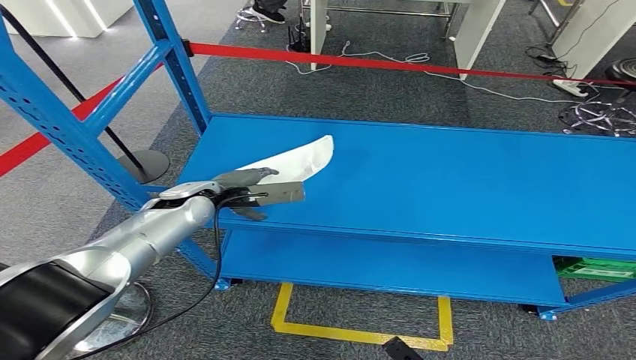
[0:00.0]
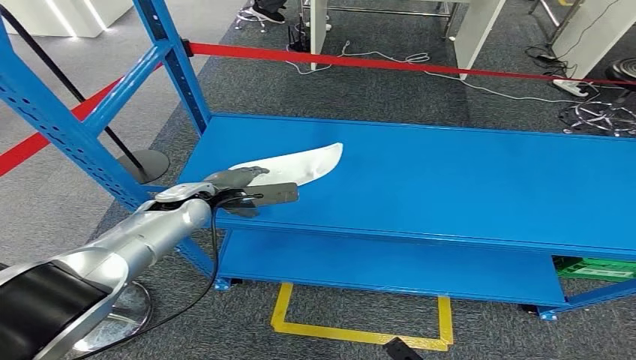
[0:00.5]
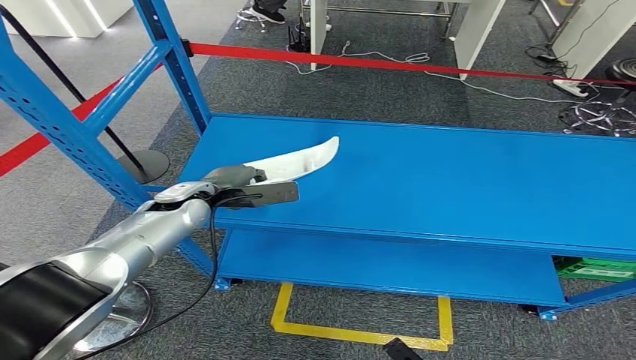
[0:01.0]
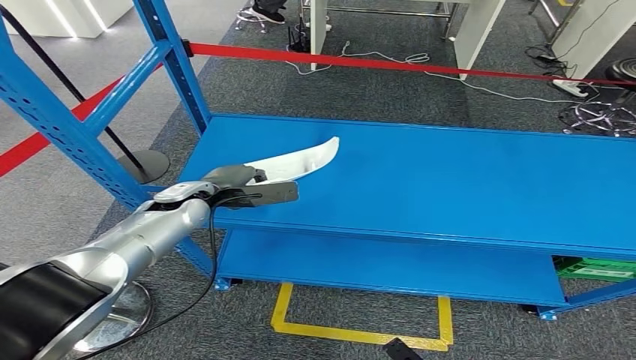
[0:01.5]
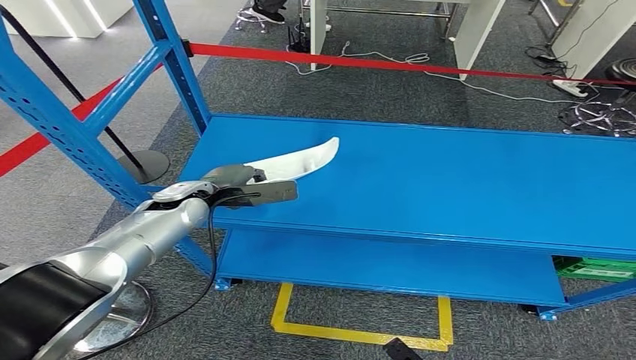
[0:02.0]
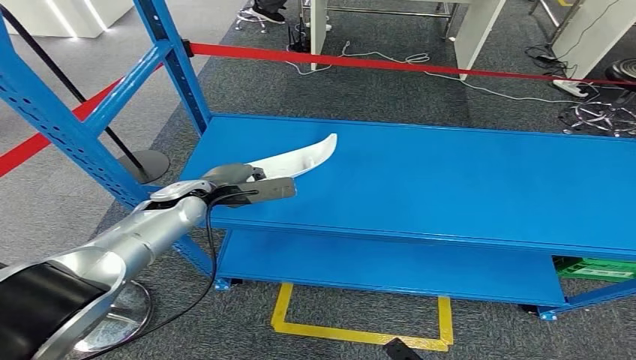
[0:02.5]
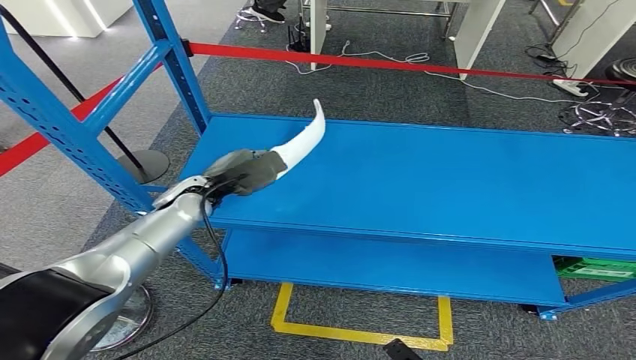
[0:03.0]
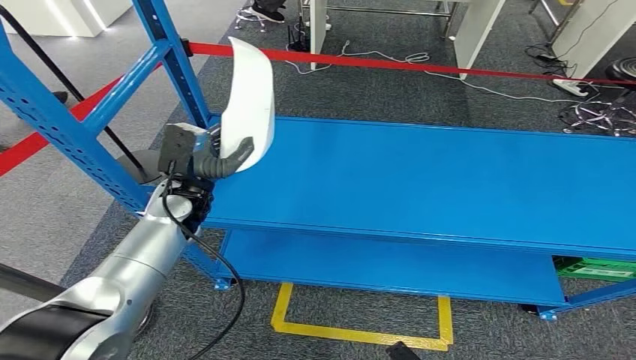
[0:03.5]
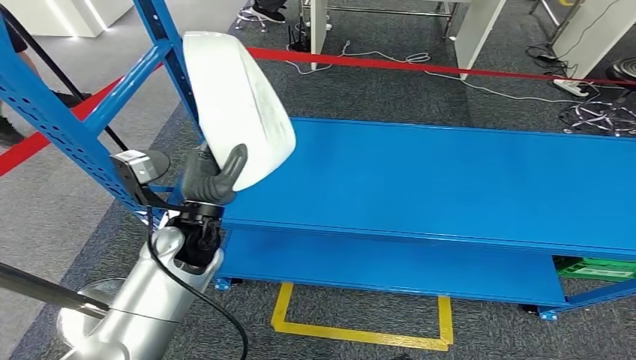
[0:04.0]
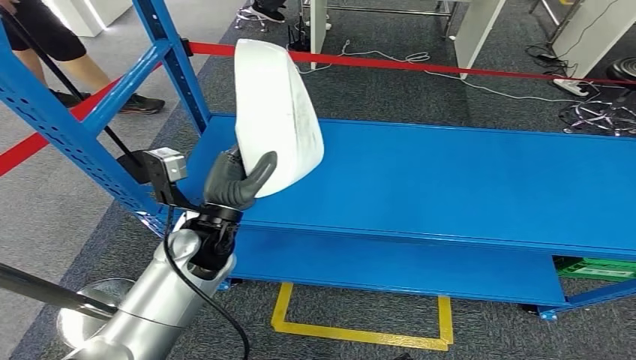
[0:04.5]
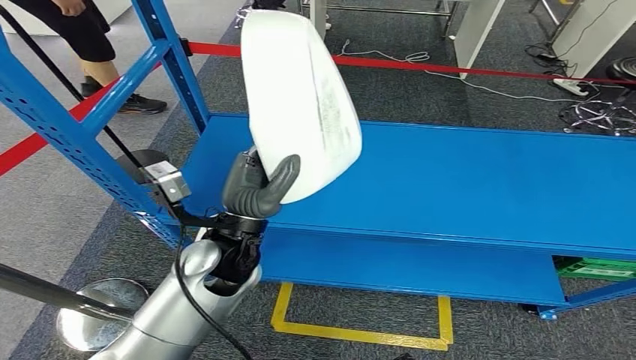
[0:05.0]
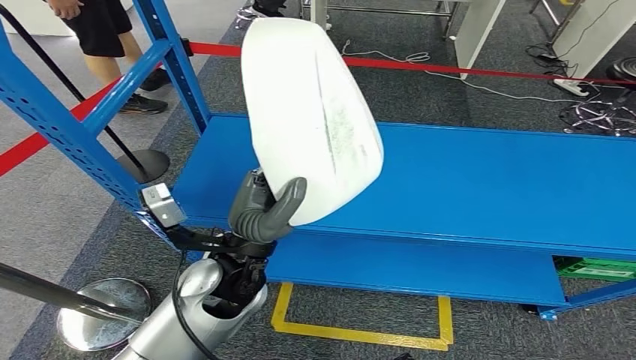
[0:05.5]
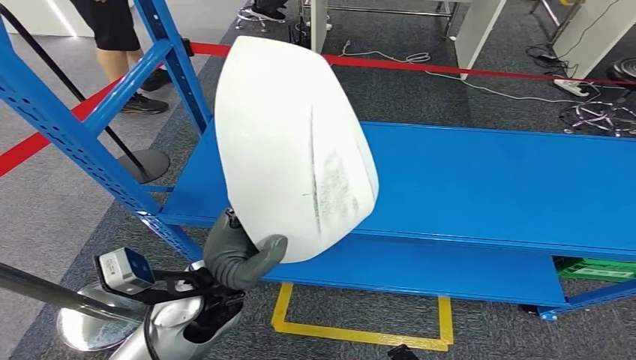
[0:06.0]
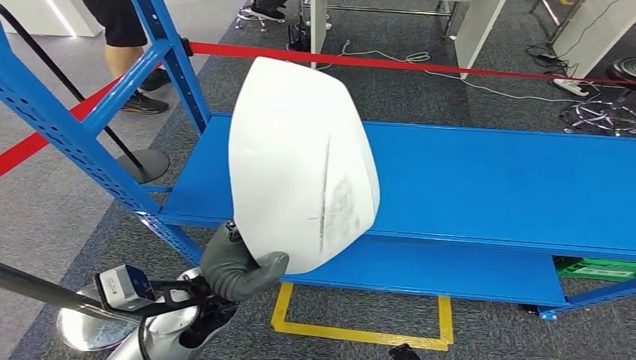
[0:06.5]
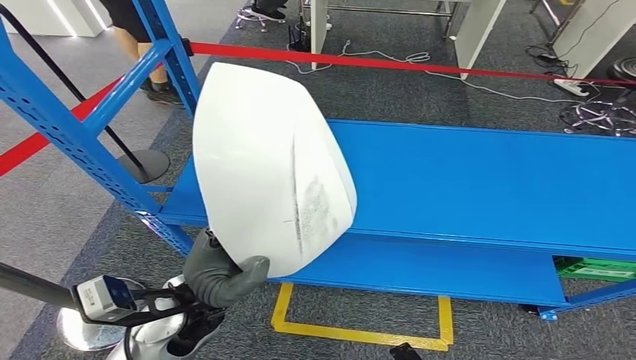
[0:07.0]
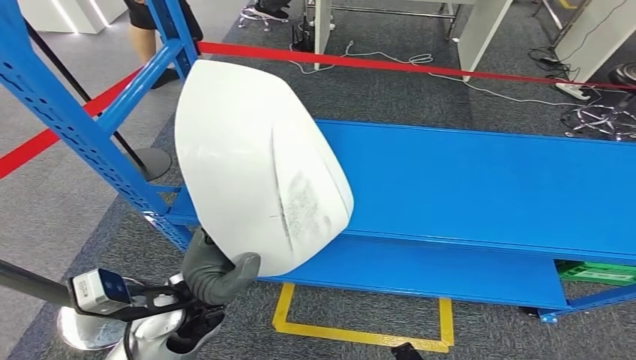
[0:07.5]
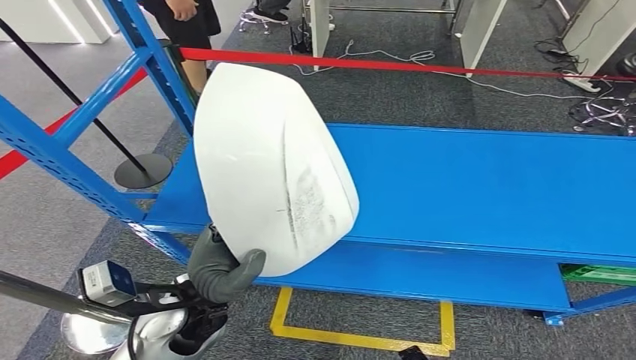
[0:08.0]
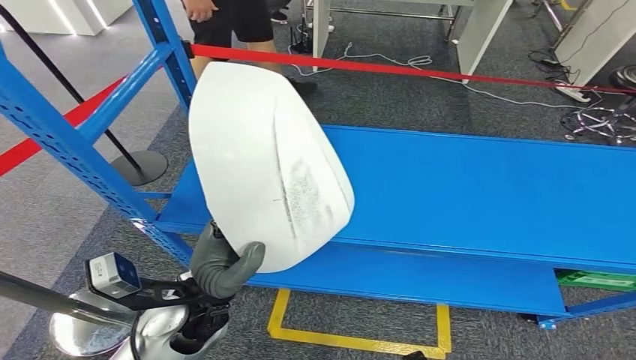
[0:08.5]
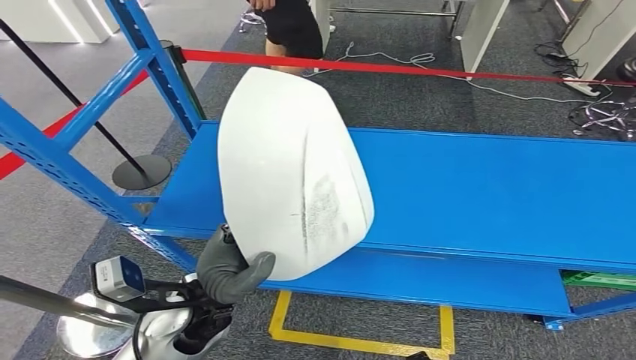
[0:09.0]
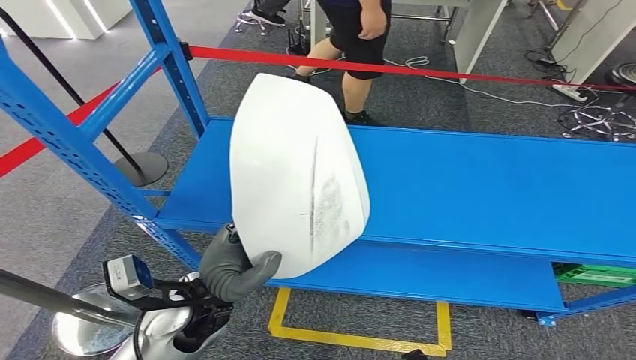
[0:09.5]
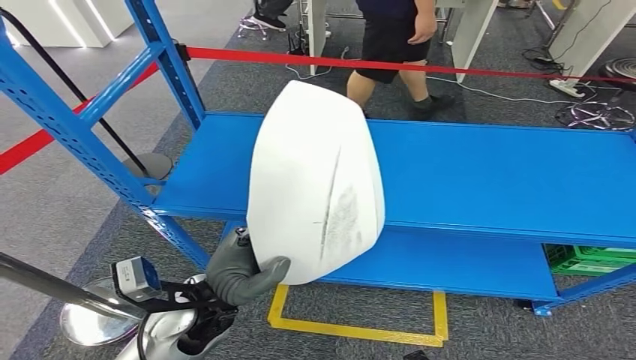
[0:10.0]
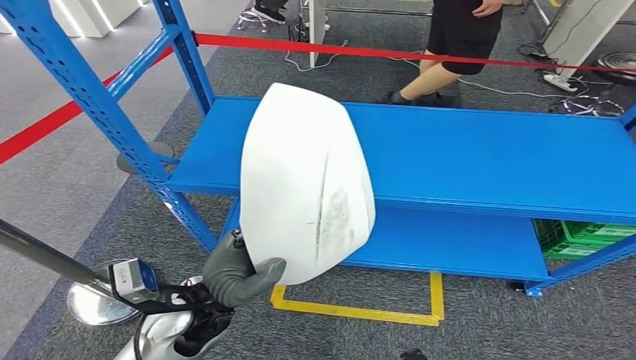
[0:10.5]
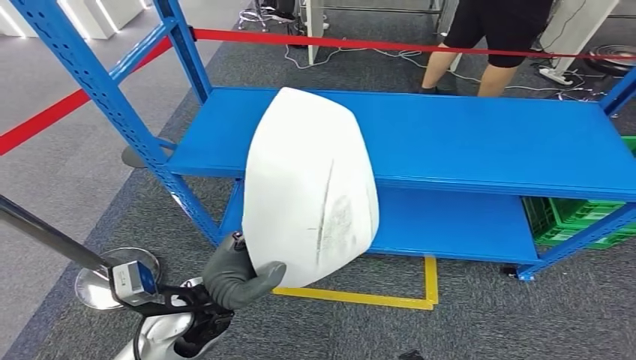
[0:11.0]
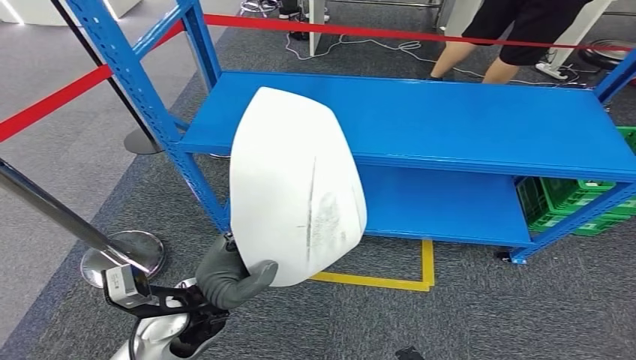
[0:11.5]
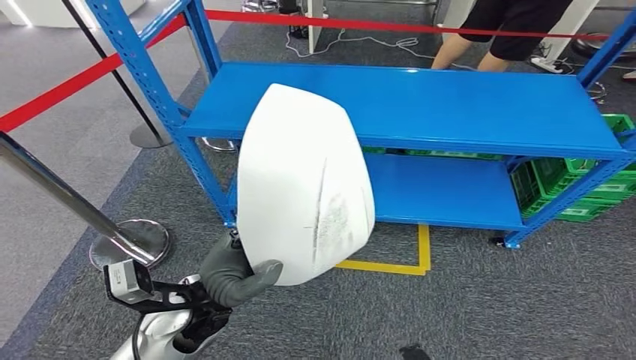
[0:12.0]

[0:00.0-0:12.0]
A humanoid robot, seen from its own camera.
Step, 0:00.0 to 0:03.0: Pick up the small component from the shelf.
0:00.0 to 0:02.0: The hands stay close to where they were, moving slightly.
0:02.0 to 0:04.0: The left hand heads backward, covering approximately 10 cm.

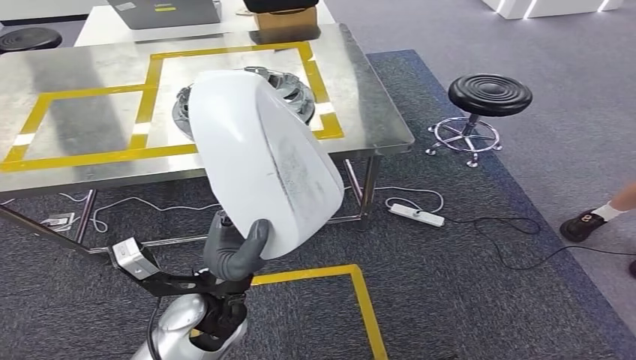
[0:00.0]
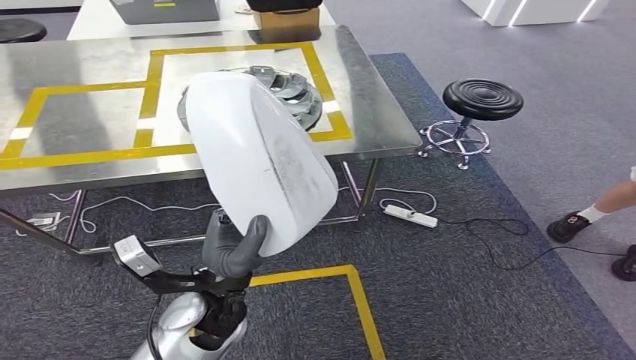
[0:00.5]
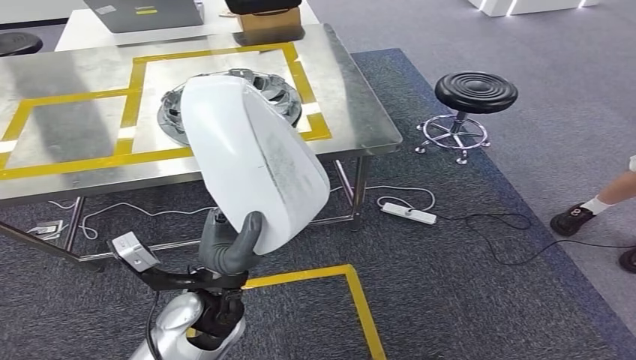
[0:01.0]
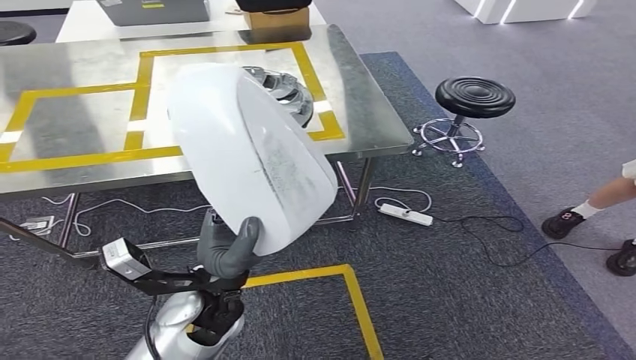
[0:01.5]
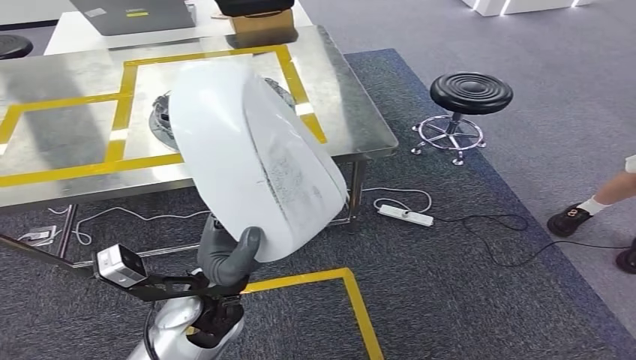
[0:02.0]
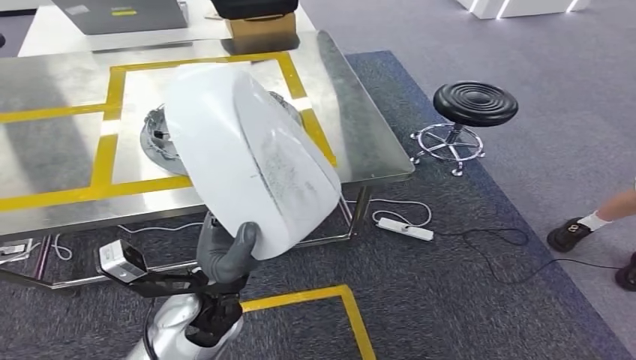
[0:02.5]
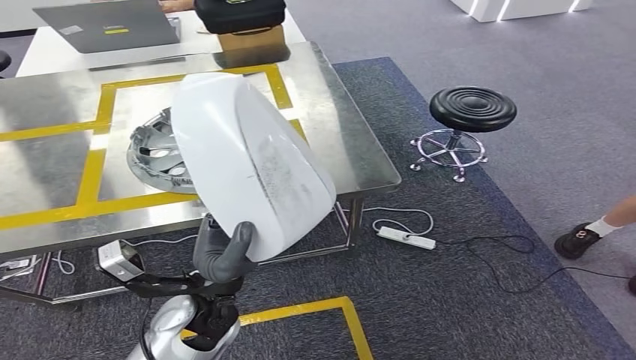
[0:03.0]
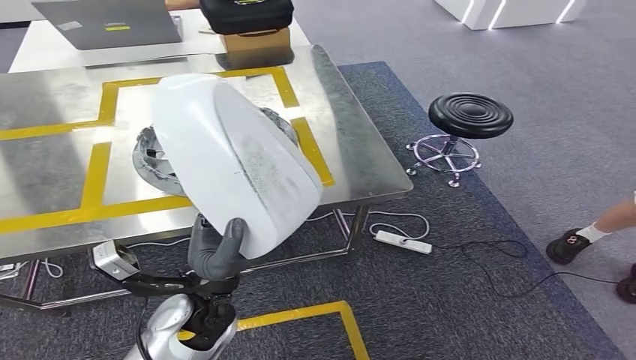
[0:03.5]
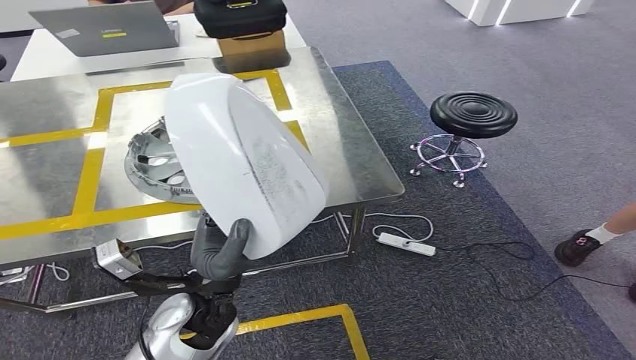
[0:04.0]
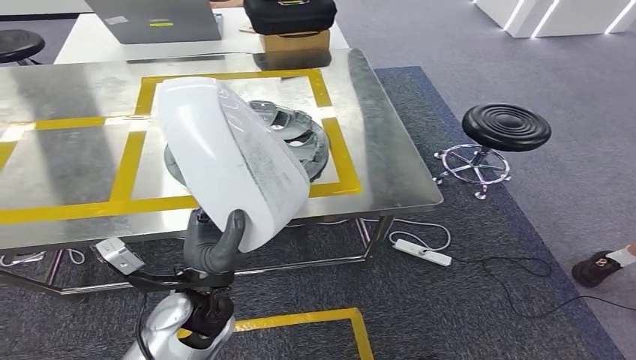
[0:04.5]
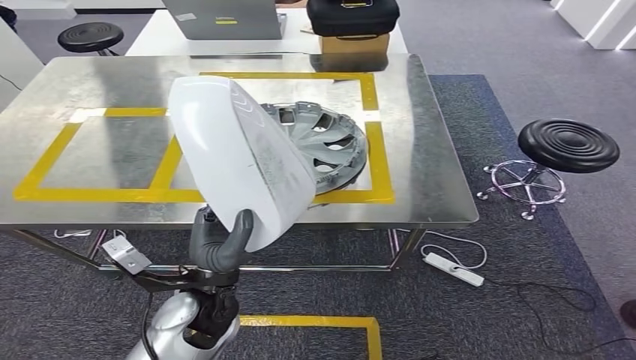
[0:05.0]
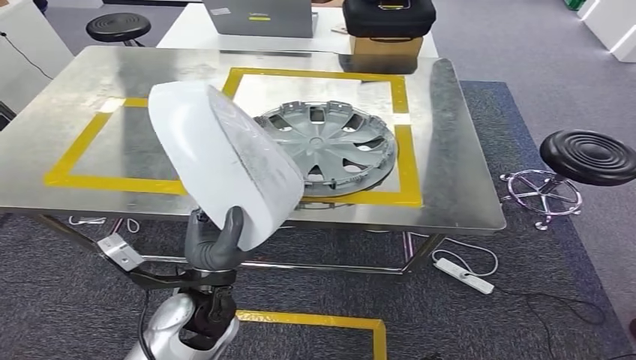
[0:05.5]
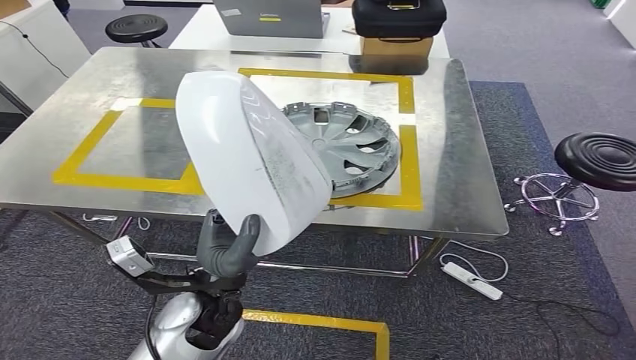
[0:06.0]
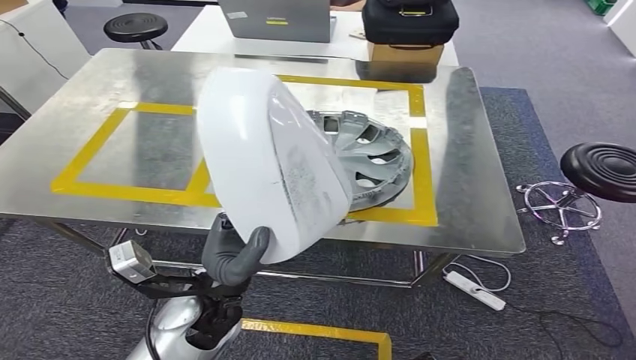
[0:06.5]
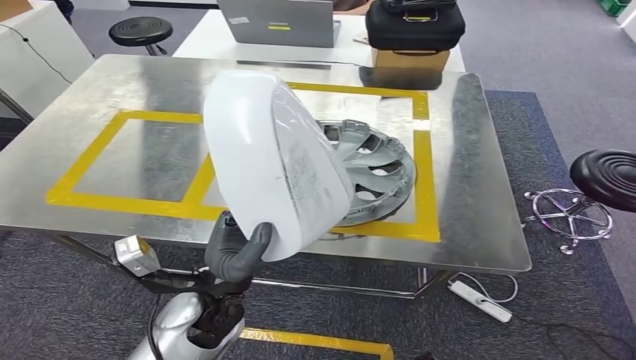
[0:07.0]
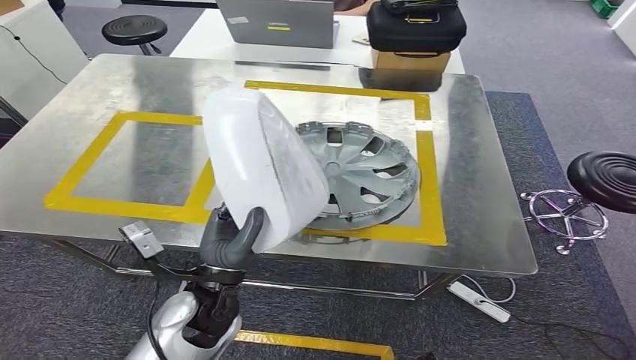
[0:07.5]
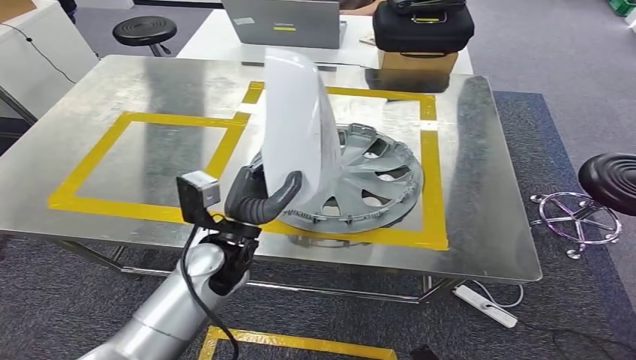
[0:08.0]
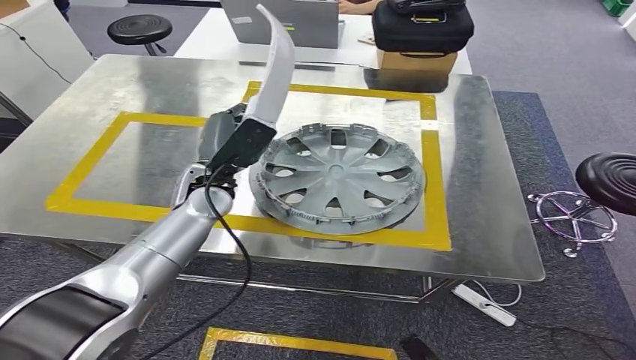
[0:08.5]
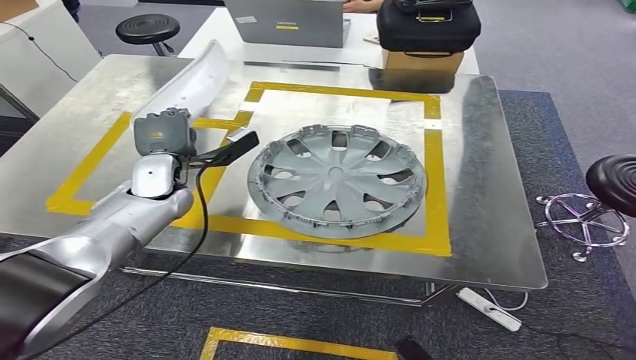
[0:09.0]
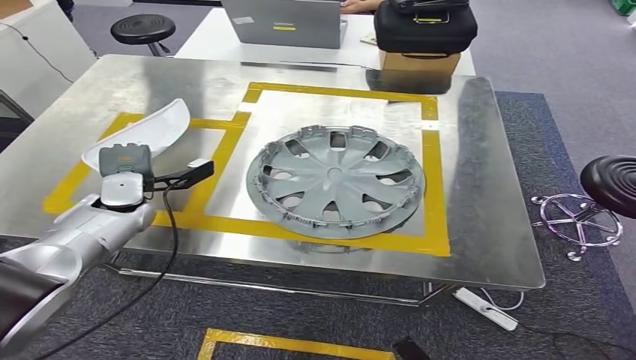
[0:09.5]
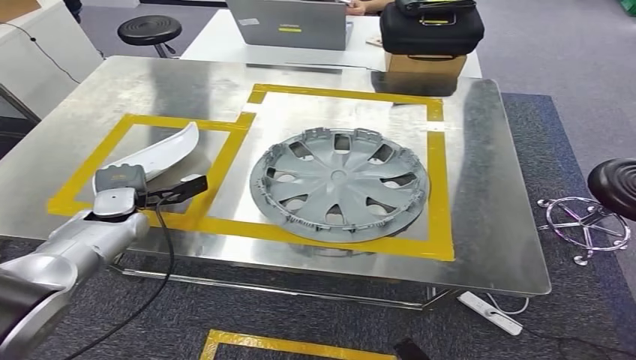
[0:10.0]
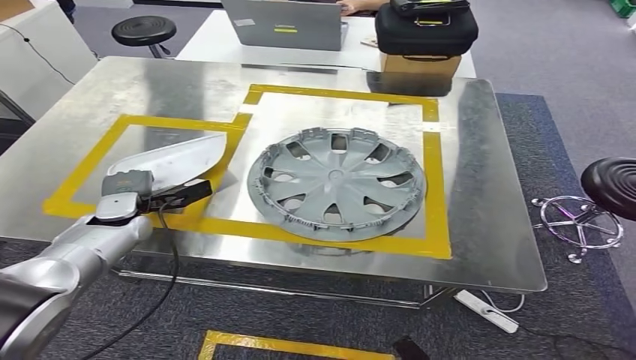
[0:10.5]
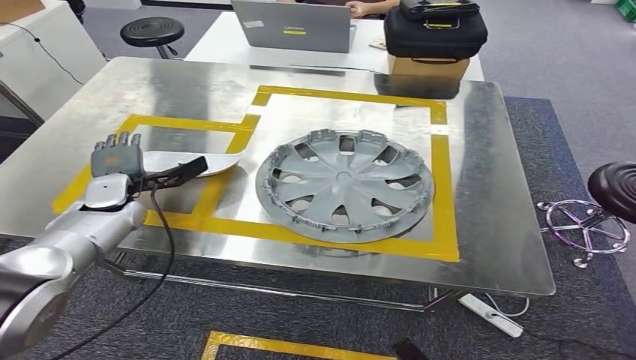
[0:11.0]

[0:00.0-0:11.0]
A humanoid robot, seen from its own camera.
Step, 0:00.0 to 0:04.5: Move the small component to the workbench.
